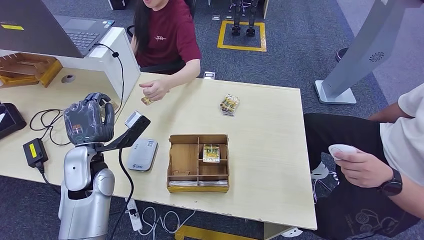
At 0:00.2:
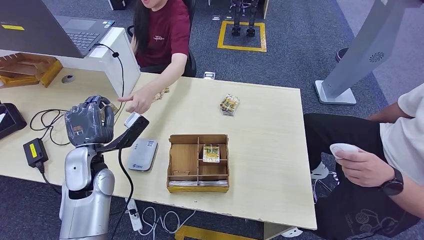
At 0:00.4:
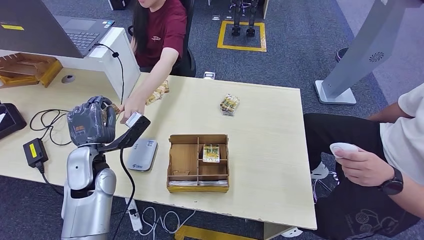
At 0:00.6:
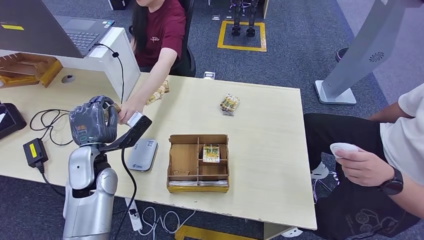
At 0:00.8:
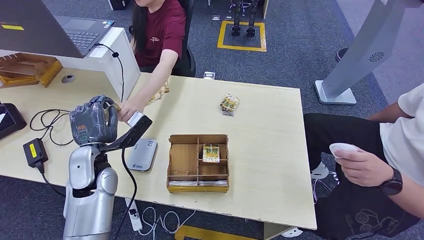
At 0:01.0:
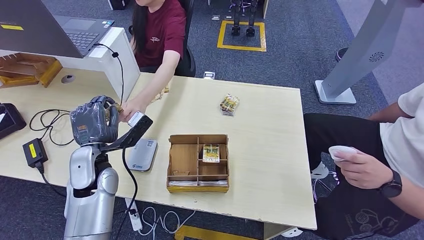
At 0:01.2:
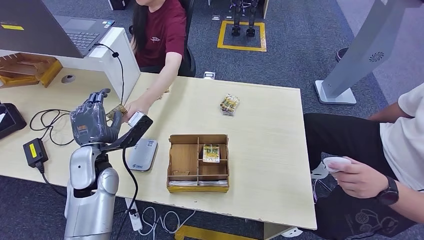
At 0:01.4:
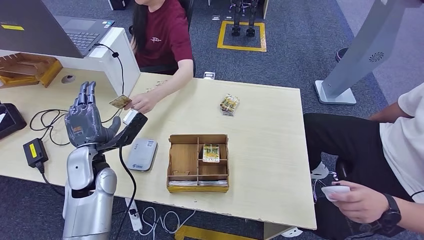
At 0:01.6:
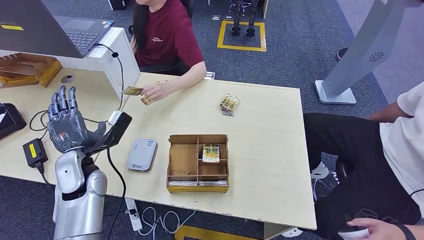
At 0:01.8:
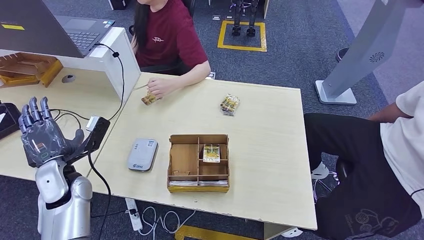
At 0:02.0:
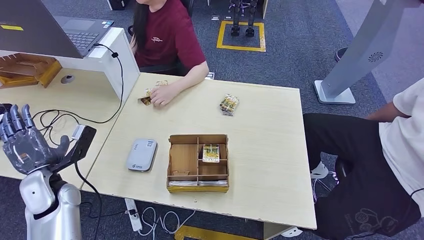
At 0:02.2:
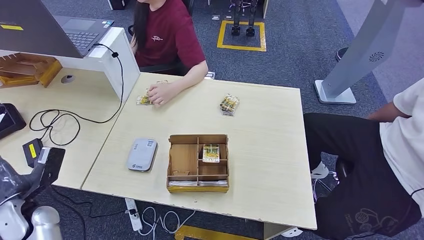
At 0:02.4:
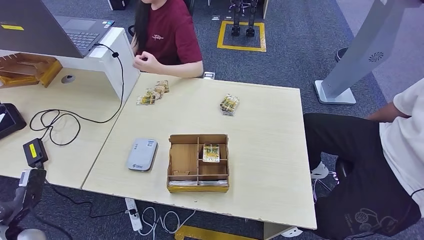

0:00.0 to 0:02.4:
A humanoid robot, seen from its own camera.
Step, 0:00.0 to 0:02.4: Hand the room key to the person.
0:00.0 to 0:01.2: The two hands keep their place.
0:01.2 to 0:02.4: The left hand shifts approximately 25 cm to the left, backward and downward.
